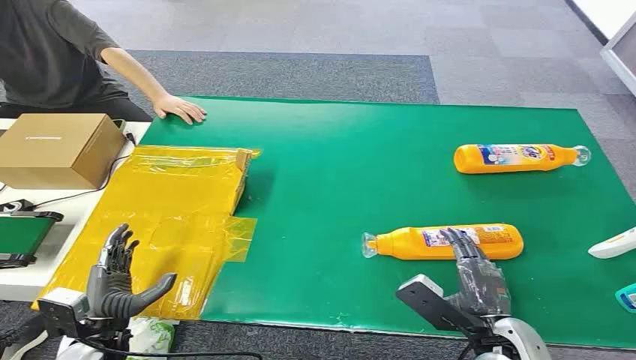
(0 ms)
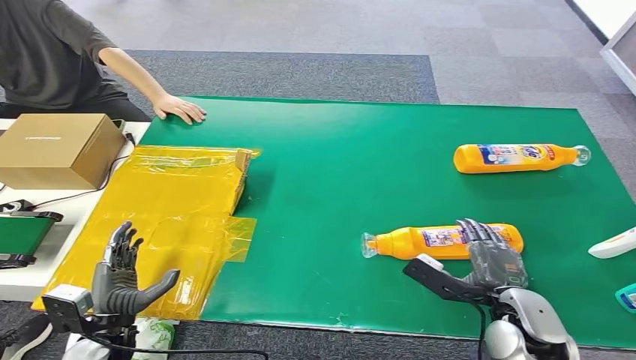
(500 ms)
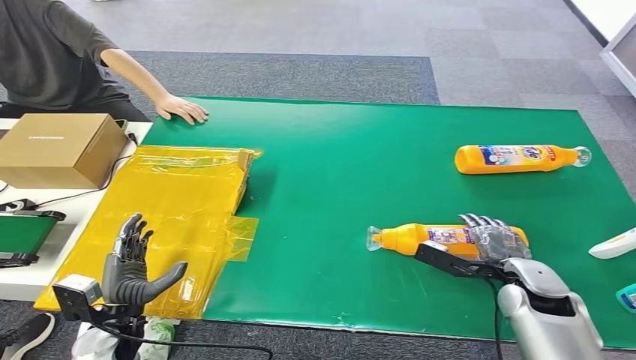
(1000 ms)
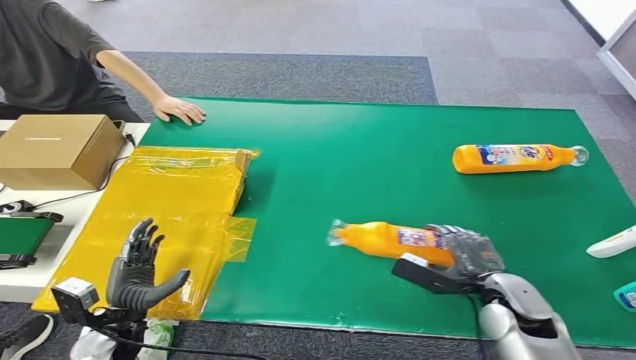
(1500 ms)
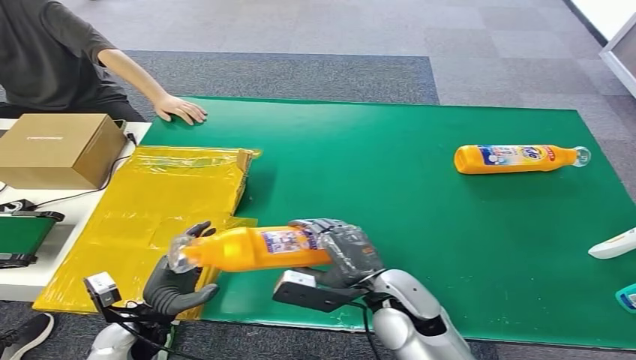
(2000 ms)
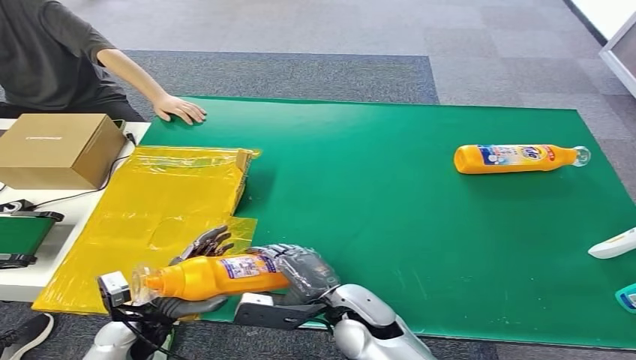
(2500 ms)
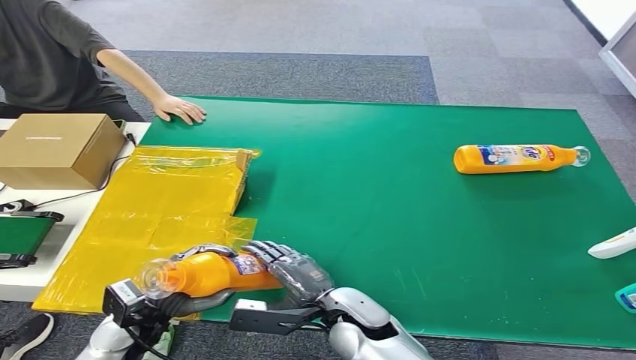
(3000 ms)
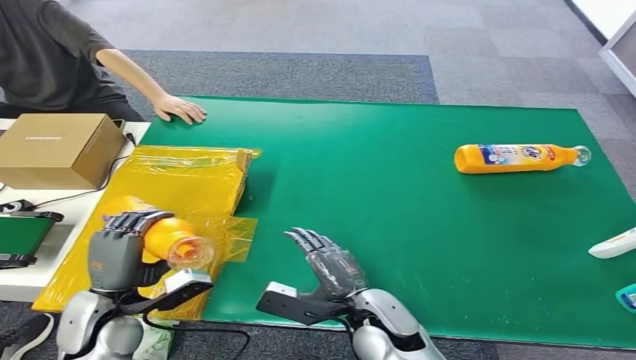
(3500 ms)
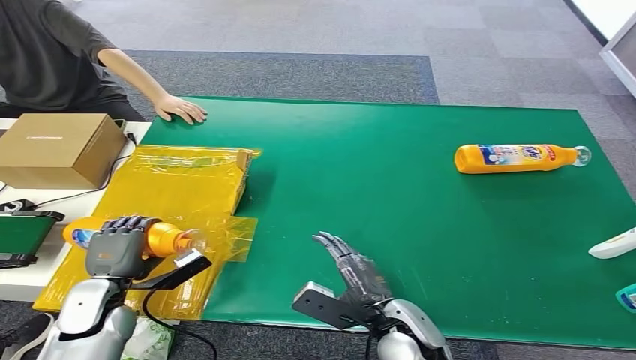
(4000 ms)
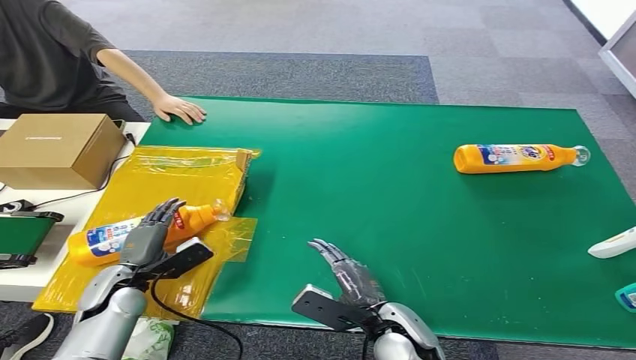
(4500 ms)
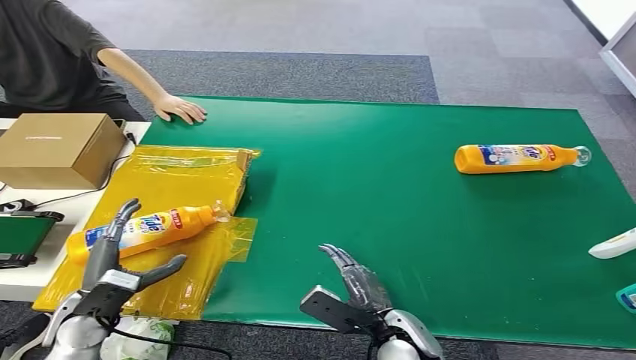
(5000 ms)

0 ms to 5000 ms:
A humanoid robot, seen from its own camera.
Step, 0 ms to 1500 ms: Pick up the bottle from the table.
Step, 2000 ms to 4500 ms: Turn the bottle to the front side.
2500 ms to 5000 ms: The left hand moves to the left, approximately 5 cm, while the right hand moves to the right, some 5 cm.

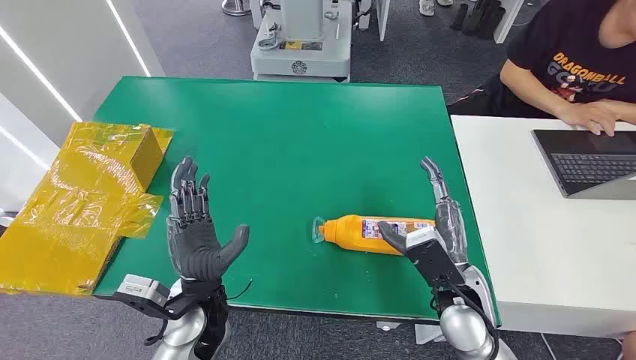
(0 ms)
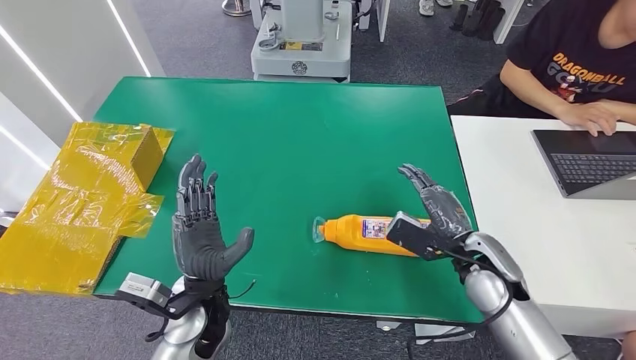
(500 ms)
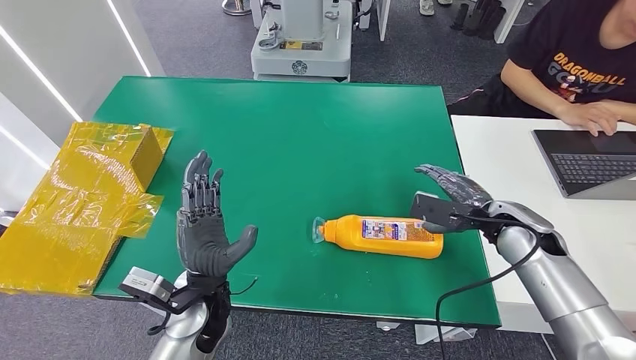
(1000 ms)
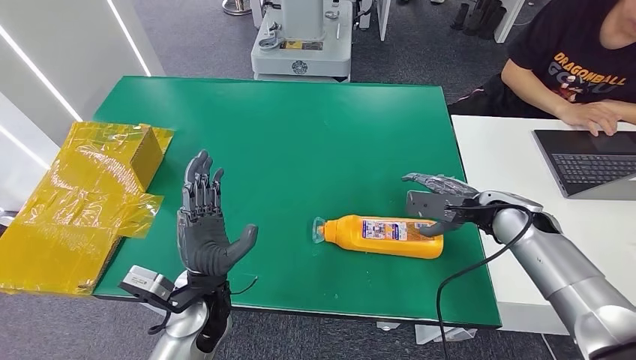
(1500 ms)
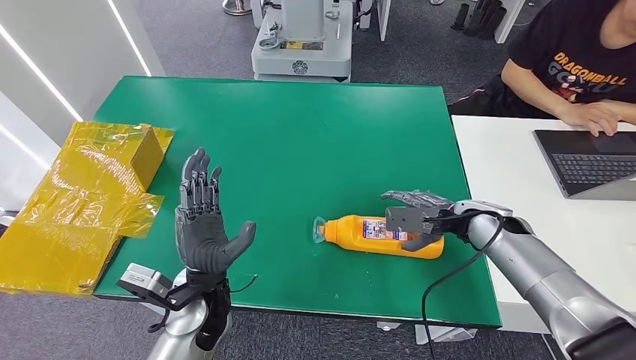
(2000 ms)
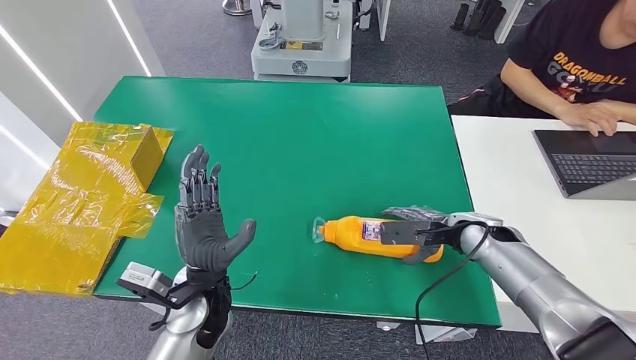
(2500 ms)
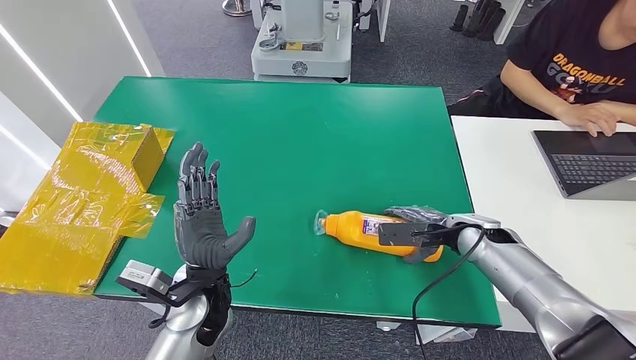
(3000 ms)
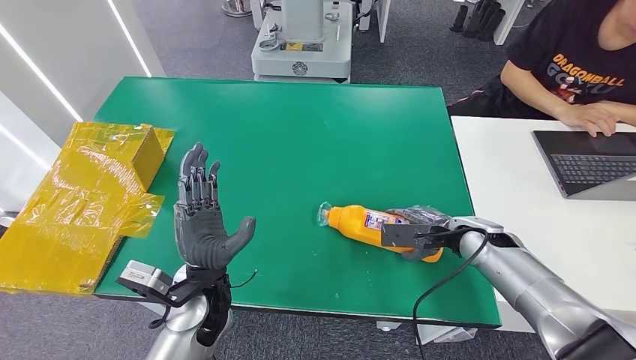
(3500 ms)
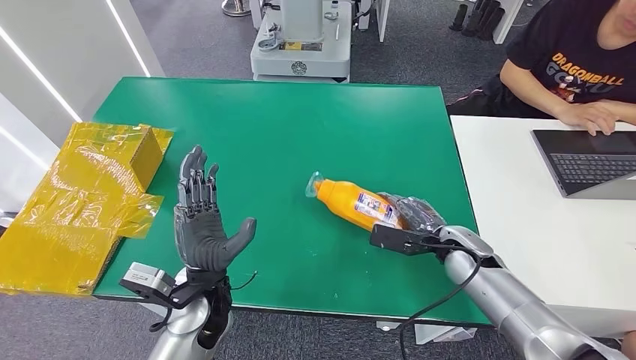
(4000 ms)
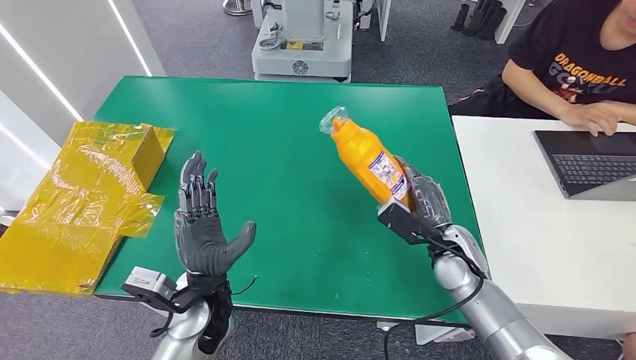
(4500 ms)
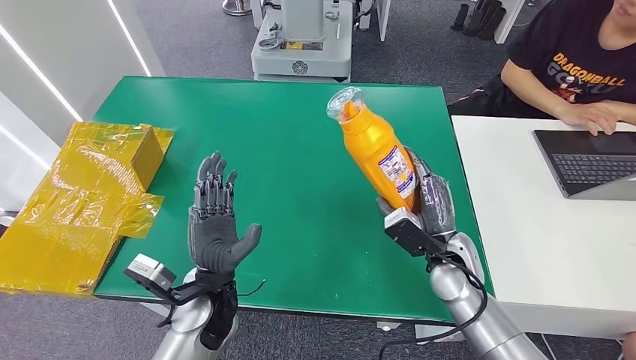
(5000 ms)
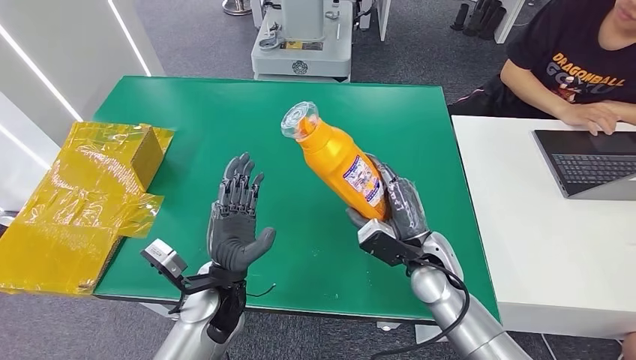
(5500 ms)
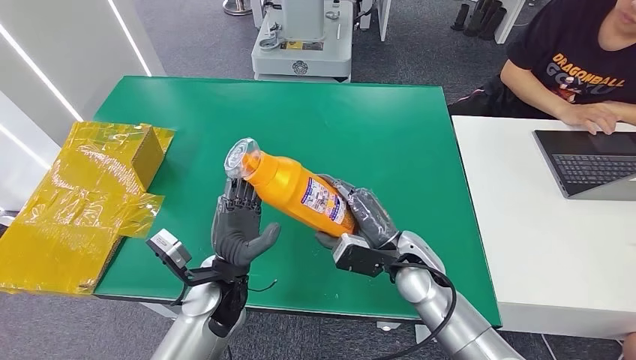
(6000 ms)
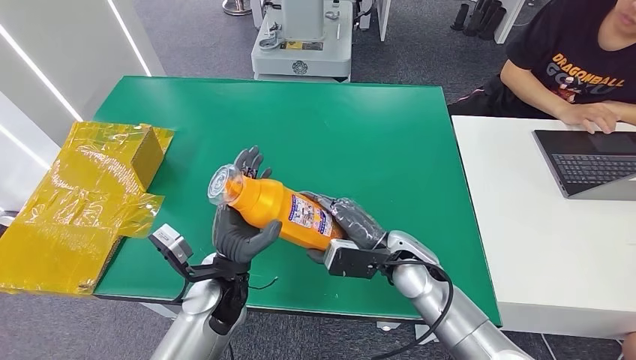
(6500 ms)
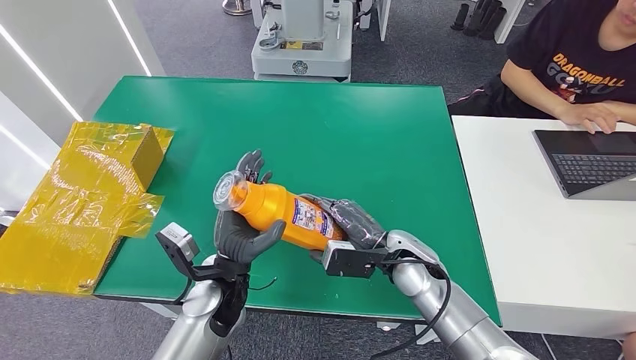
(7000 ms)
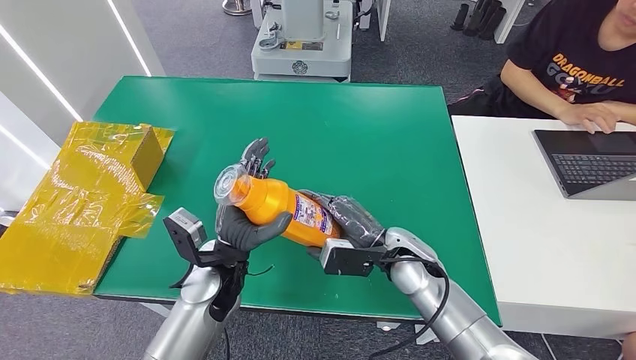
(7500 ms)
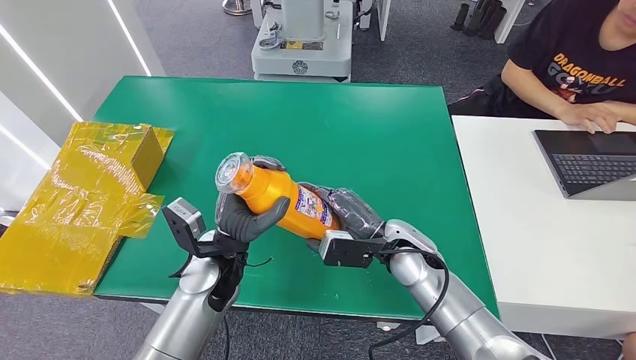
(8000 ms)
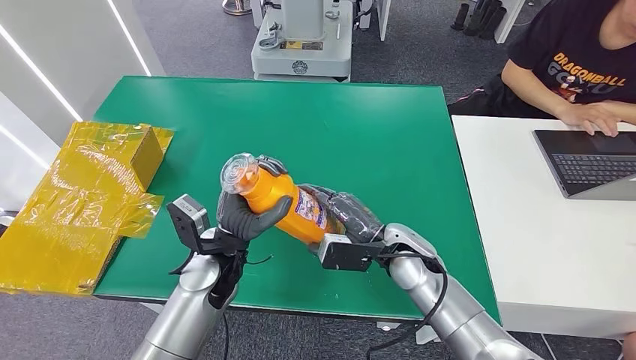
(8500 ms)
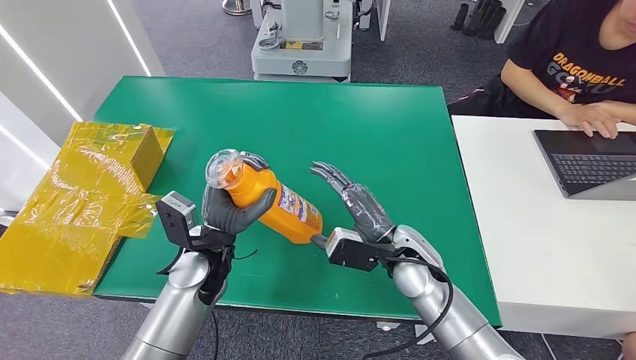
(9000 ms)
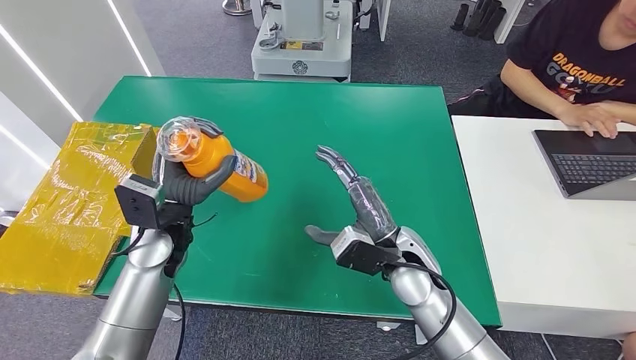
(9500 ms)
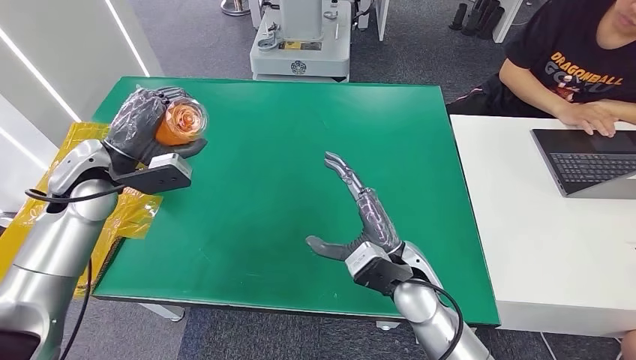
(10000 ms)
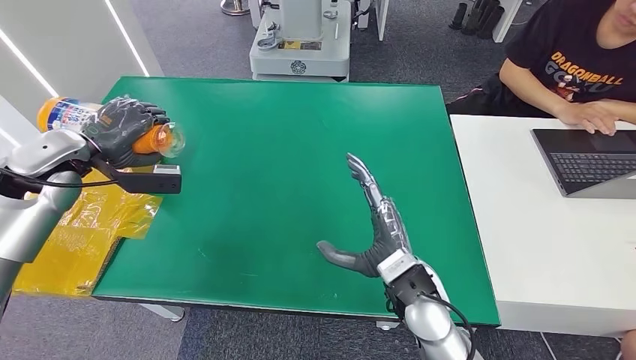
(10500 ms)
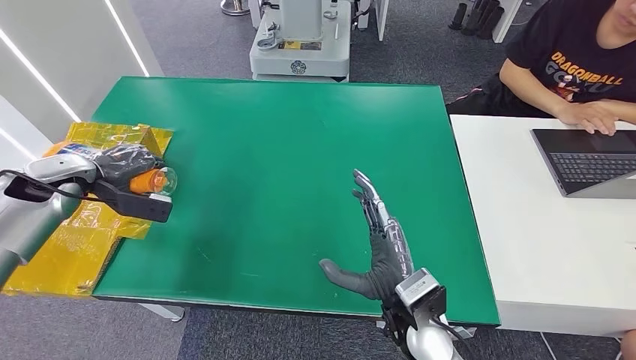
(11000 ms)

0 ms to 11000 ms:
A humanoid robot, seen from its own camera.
Step, 0 ms to 5500 ms: Pick up the bottle from the table.
2000 ms to 3500 ms: The hands stay close to where they were, moving slightly.
3500 ms to 5500 ms: The right hand moves to the left and backward, about 15 cm.
7500 ms to 9000 ms: There are only small adjustments of the hands.

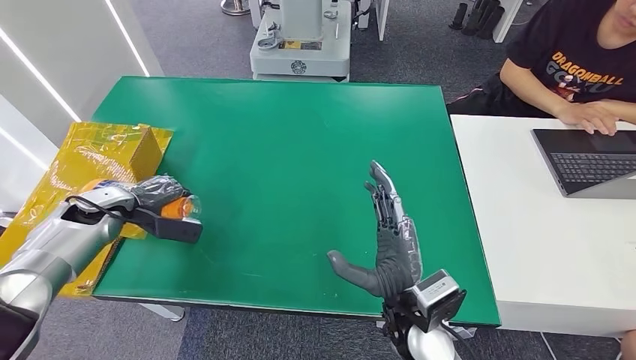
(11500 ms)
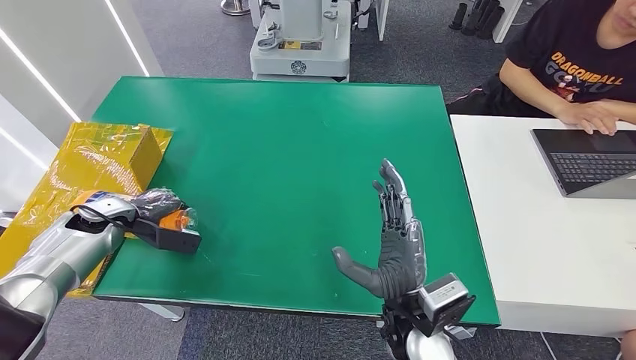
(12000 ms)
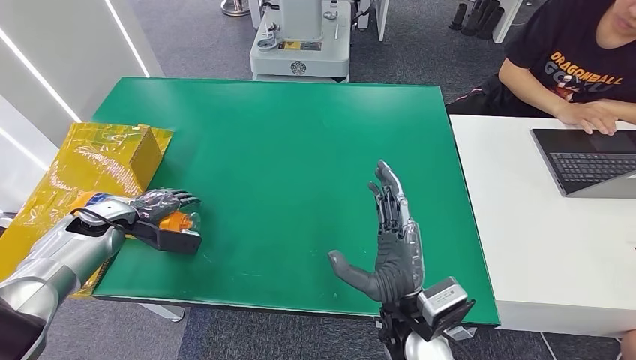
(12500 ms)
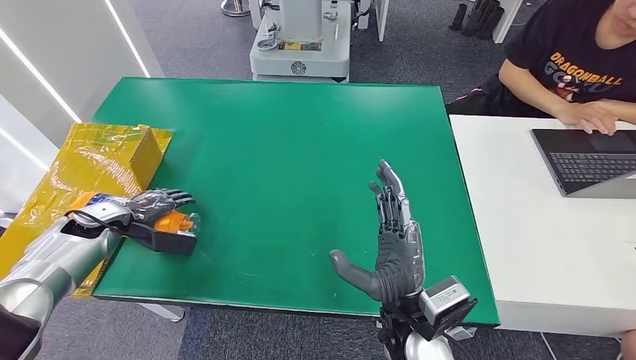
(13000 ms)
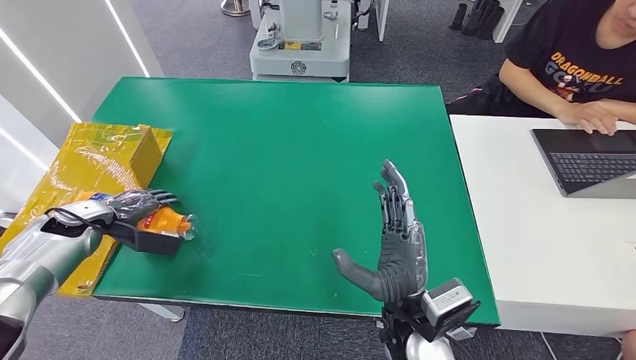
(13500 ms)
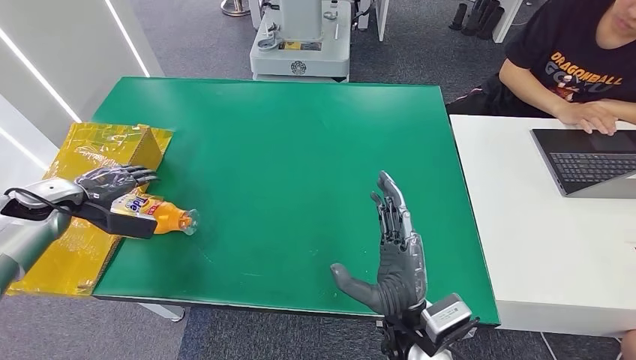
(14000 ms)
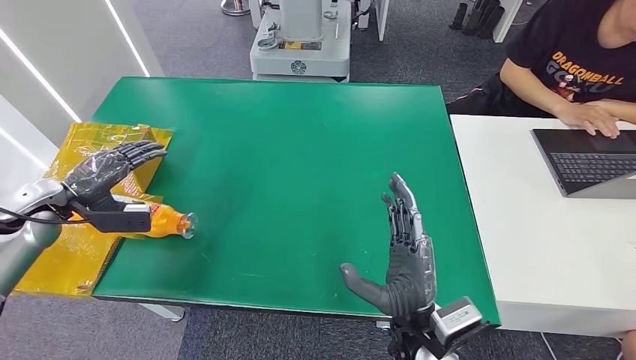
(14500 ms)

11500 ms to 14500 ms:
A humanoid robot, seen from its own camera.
Step, 11500 ms to 14000 ms: Turn the bottle to the front side.
11500 ms to 13000 ms: The hands make only small movements.
13000 ms to 14500 ms: The left hand heads upward, covering about 5 cm.

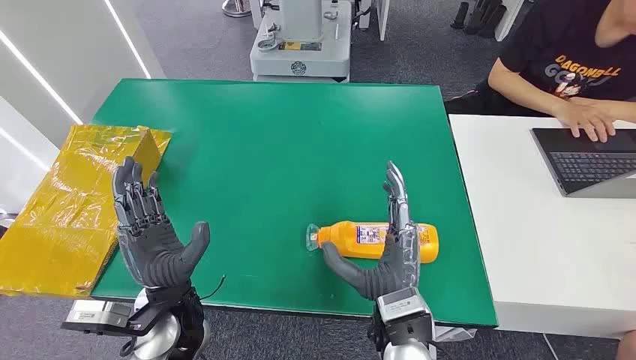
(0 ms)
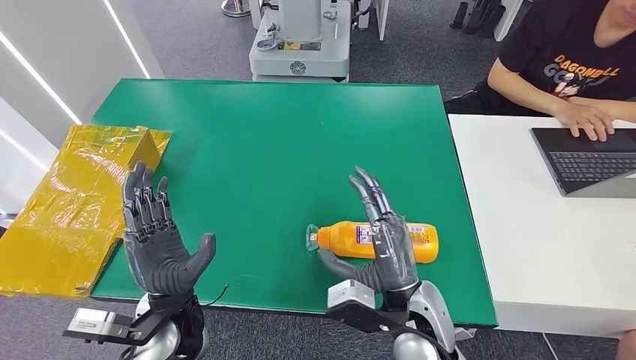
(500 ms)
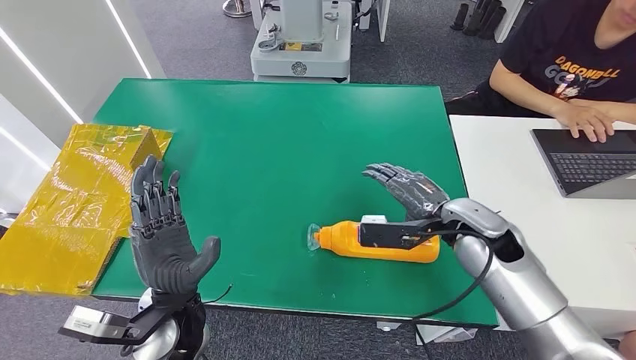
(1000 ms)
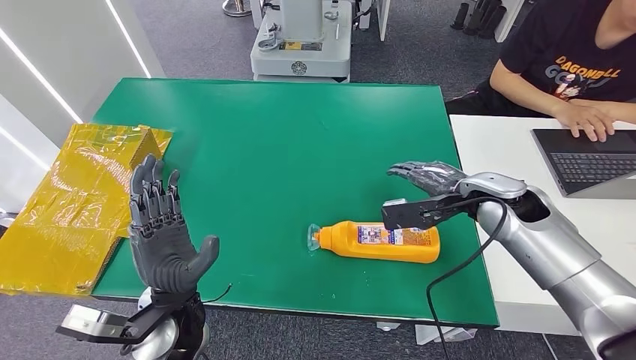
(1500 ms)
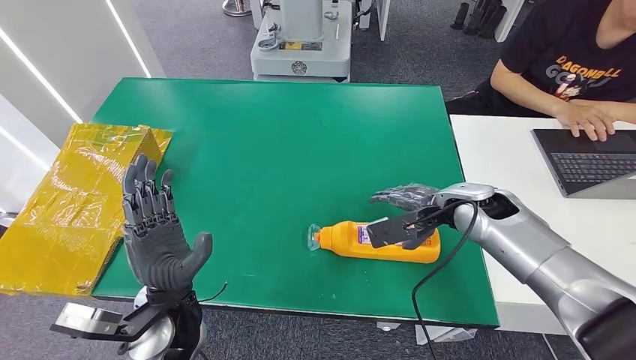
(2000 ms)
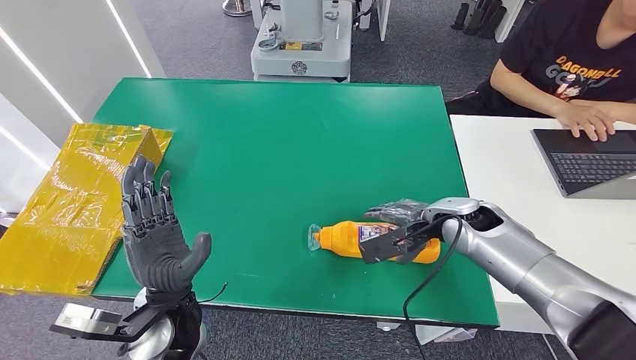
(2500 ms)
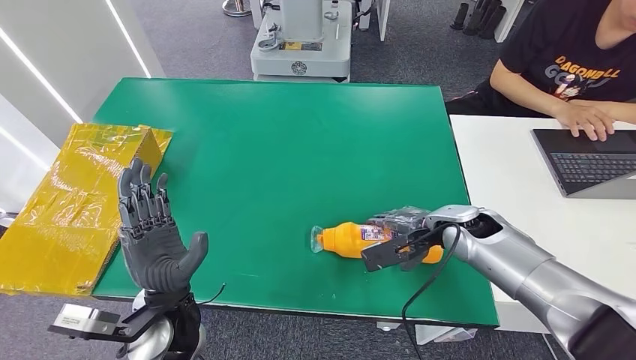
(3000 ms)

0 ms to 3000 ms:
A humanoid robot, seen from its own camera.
1500 ms to 3000 ms: The right hand moves downward, roughly 5 cm.
